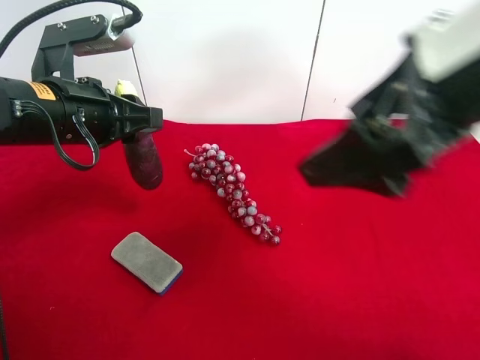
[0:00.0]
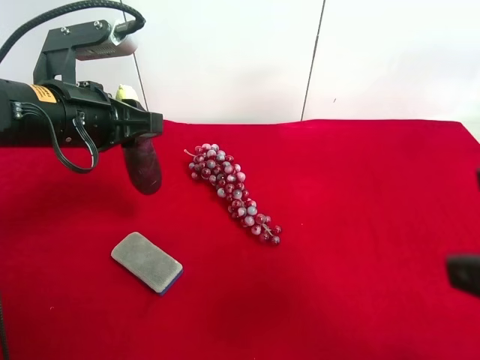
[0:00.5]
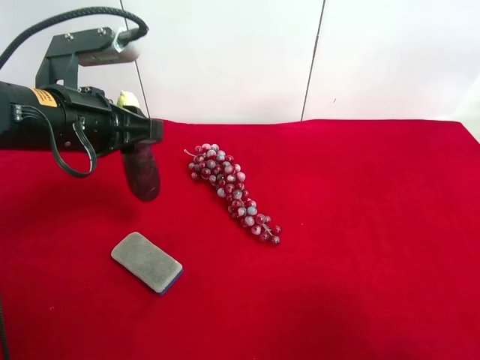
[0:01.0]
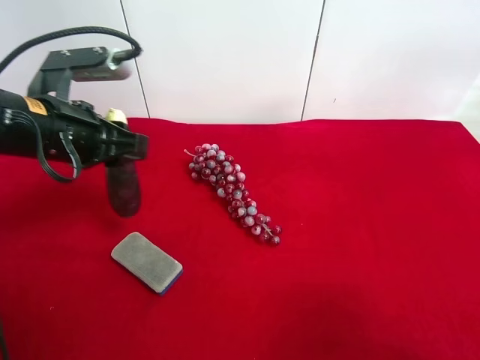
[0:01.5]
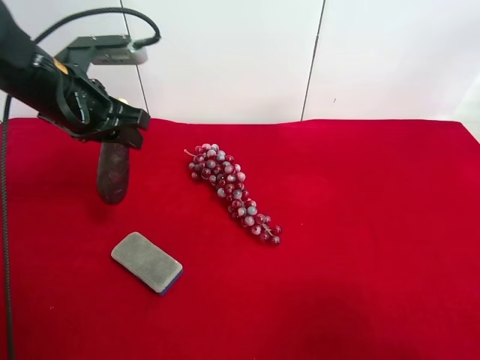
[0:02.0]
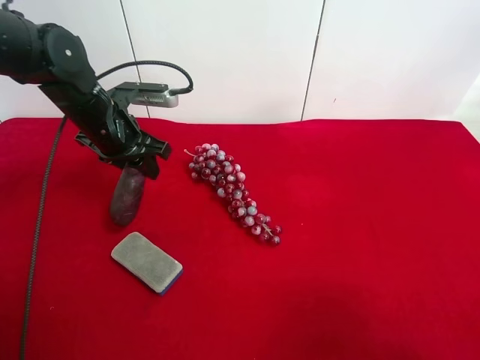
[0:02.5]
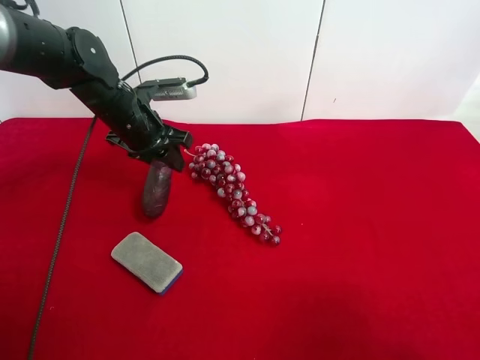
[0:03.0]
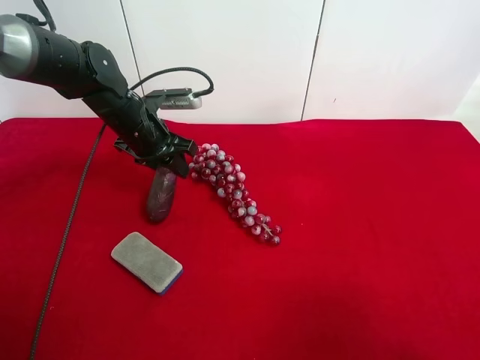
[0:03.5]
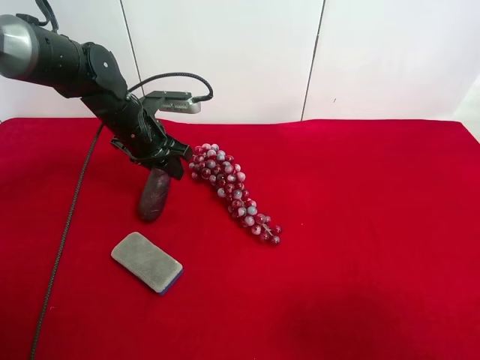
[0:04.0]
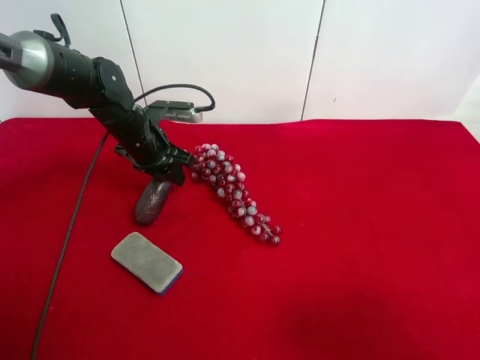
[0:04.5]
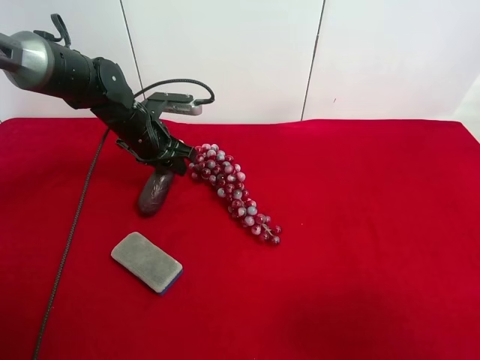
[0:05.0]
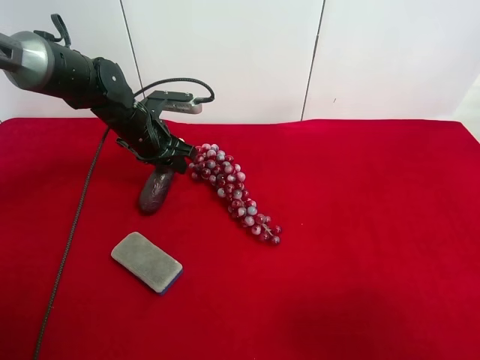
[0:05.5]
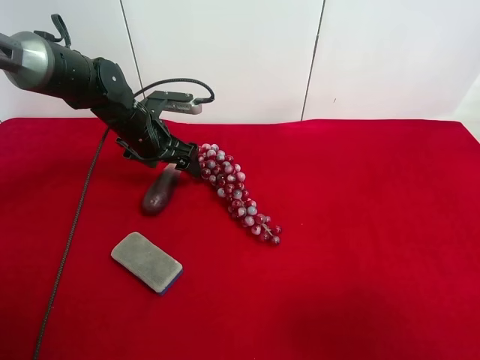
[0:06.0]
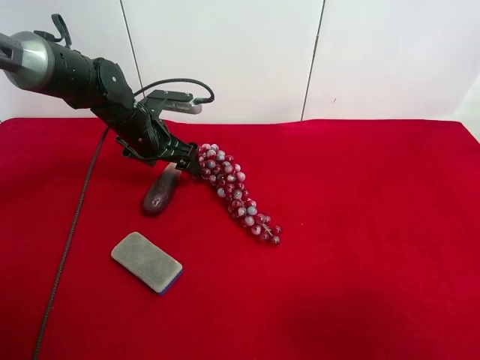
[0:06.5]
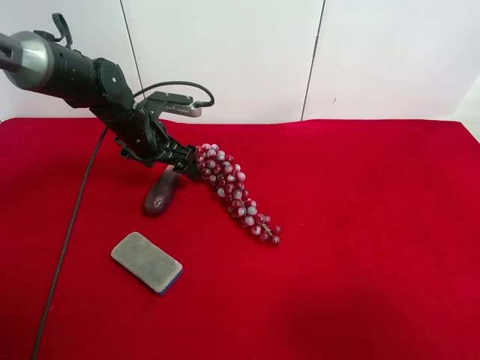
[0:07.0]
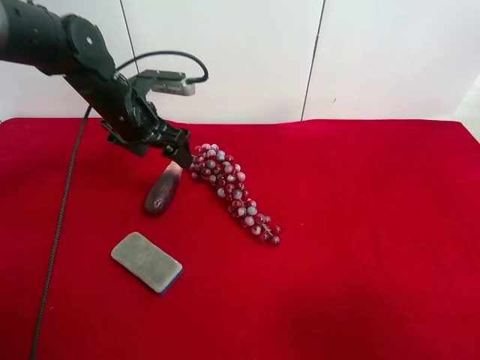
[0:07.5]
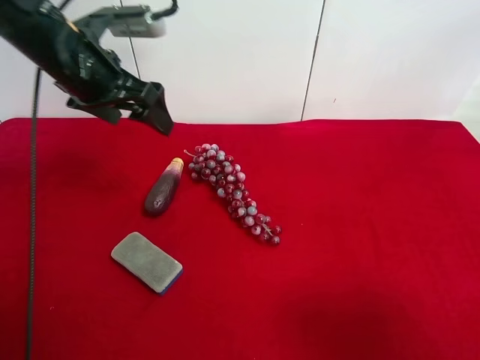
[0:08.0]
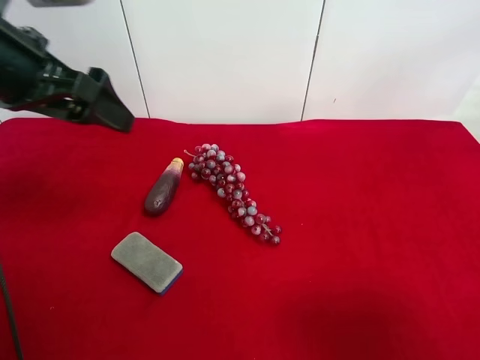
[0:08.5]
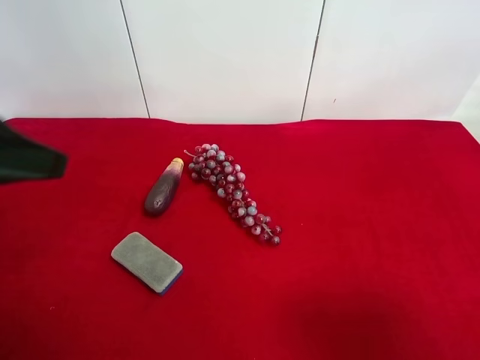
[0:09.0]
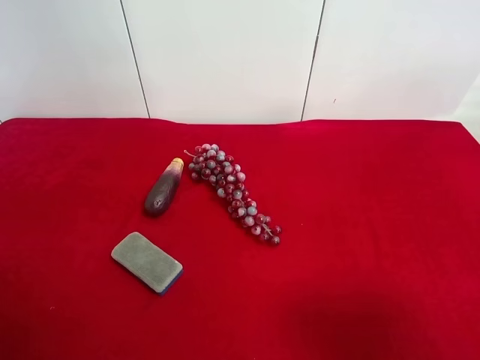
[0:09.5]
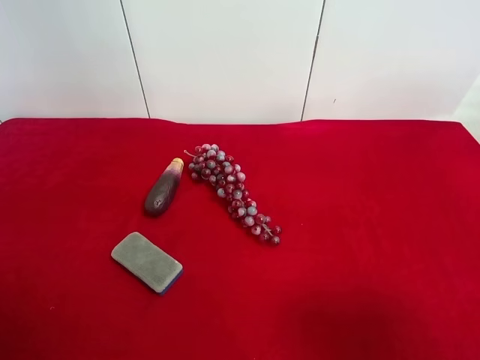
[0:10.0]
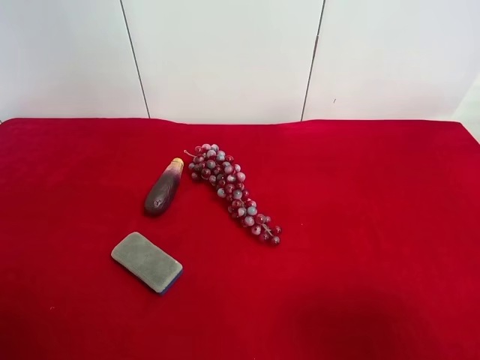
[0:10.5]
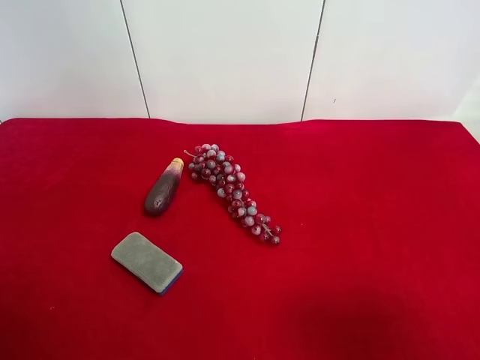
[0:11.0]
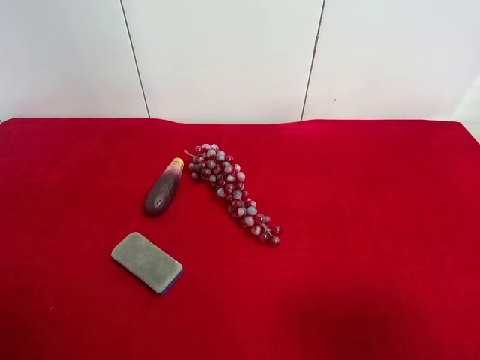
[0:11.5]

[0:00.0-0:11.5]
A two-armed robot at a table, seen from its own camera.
Task of the whole recording: use the right gripper to pick up the item and transfer it from the right gripper to the left gripper.
Step, 0:00.0 to 0:05.5: The left gripper places eggplant on the left side of the table.
0:00.0 to 0:02.0: The right gripper moves backward, to the right and downward, some 20 cm; the left gripper goes some 5 cm forward.
0:02.0 to 0:04.0: The left gripper is displaced downward and forward by approximately 10 cm.
0:04.0 to 0:06.0: The left gripper opens its fingers.
0:06.0 to 0:07.5: The left gripper moves upward, approximately 5 cm.
0:07.5 to 0:09.5: The left gripper shifts approximately 35 cm backward and upward.
